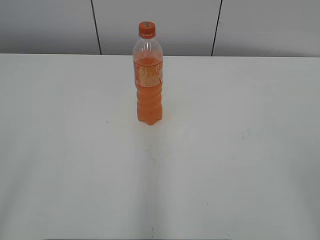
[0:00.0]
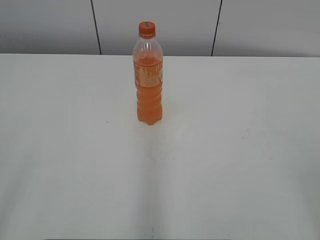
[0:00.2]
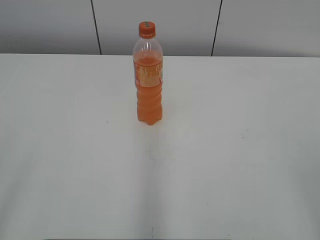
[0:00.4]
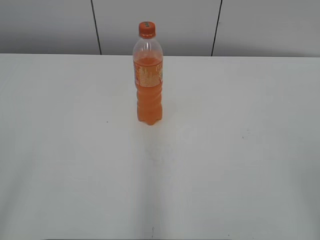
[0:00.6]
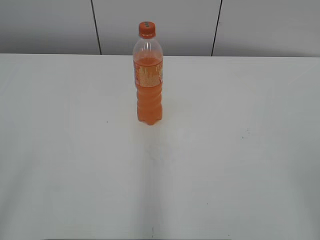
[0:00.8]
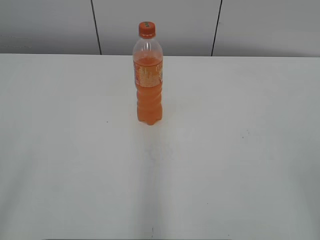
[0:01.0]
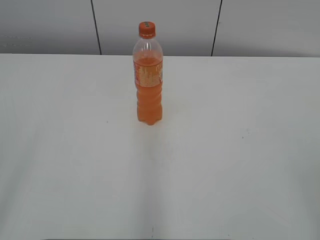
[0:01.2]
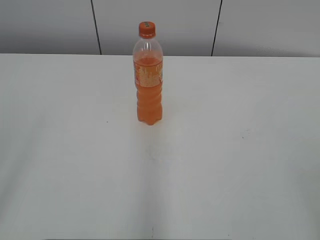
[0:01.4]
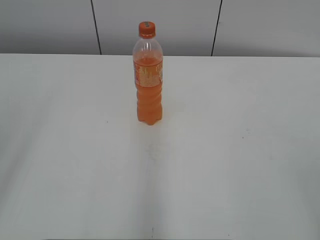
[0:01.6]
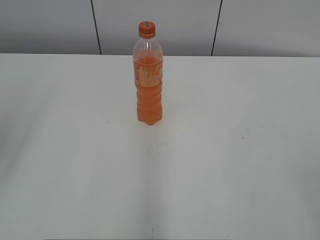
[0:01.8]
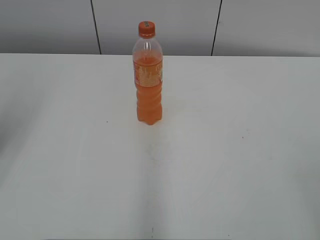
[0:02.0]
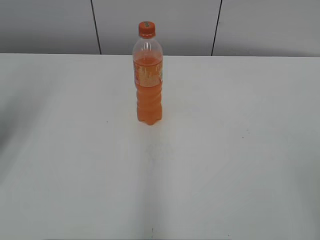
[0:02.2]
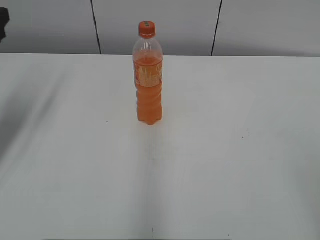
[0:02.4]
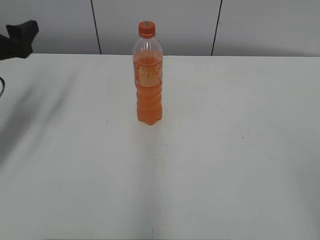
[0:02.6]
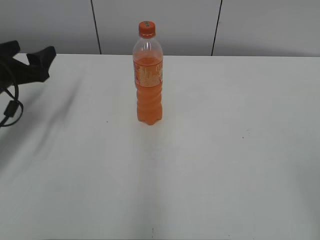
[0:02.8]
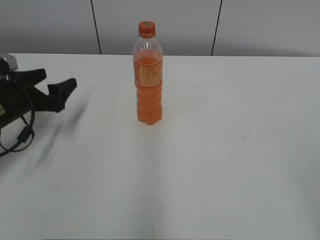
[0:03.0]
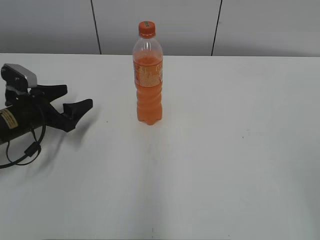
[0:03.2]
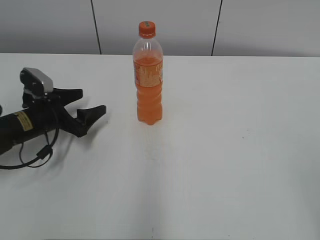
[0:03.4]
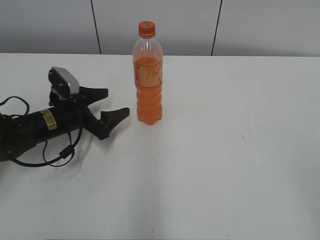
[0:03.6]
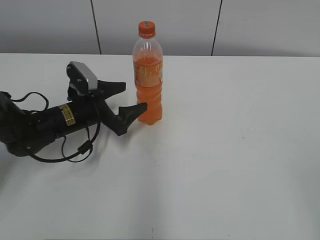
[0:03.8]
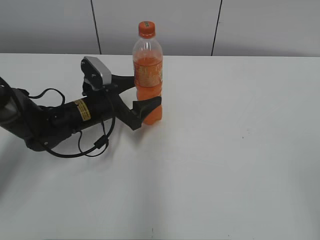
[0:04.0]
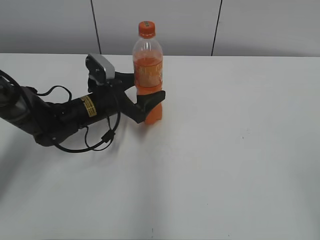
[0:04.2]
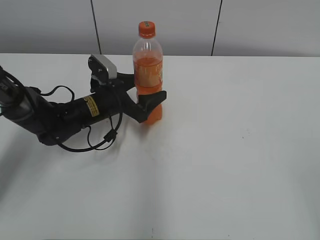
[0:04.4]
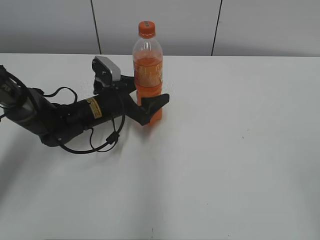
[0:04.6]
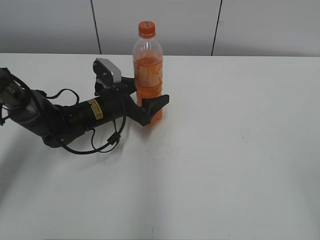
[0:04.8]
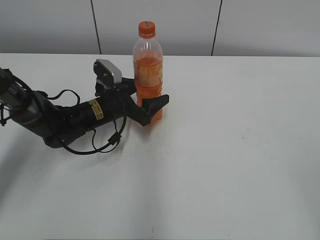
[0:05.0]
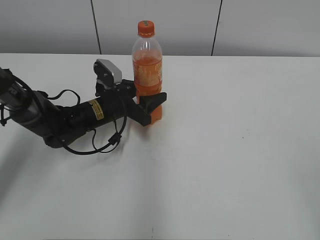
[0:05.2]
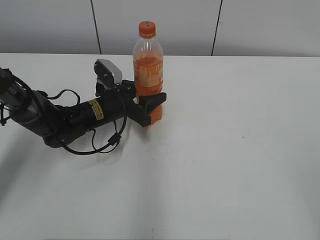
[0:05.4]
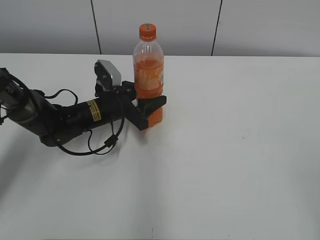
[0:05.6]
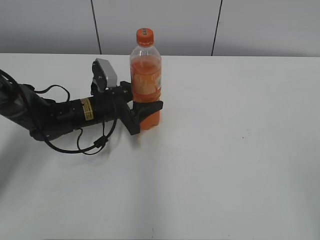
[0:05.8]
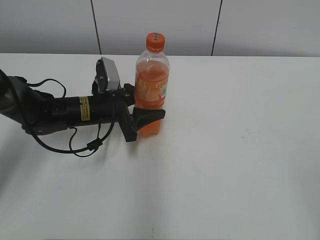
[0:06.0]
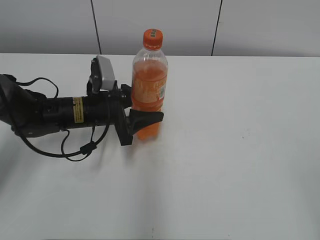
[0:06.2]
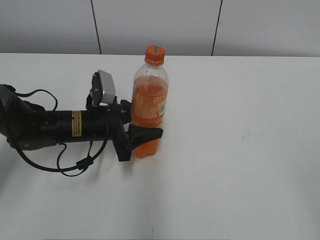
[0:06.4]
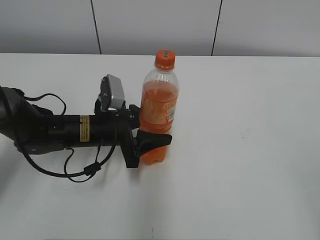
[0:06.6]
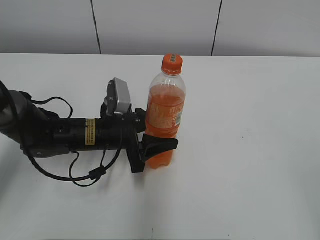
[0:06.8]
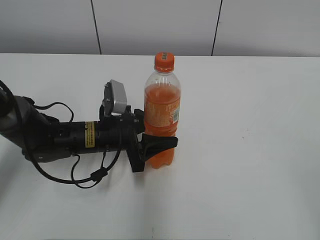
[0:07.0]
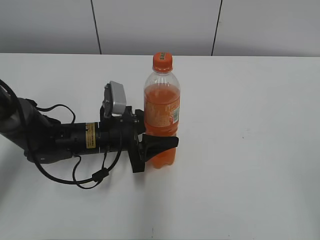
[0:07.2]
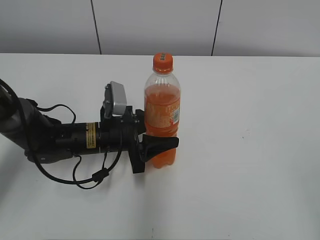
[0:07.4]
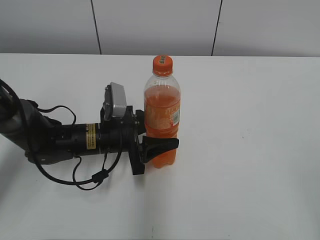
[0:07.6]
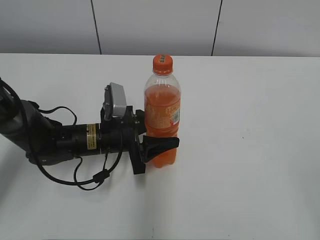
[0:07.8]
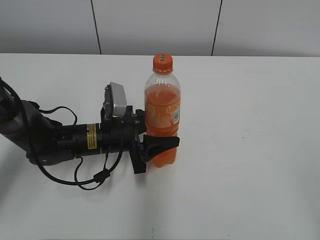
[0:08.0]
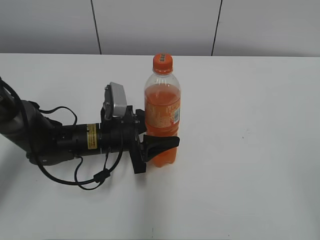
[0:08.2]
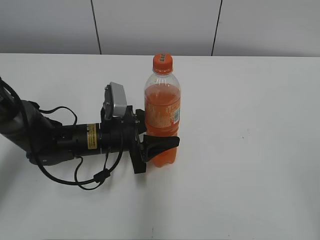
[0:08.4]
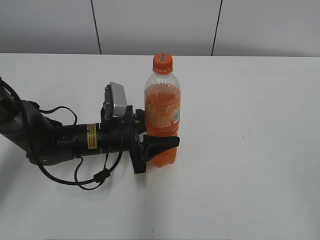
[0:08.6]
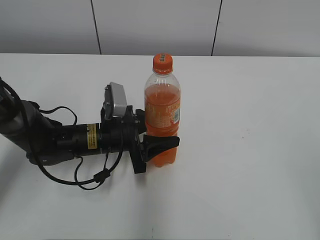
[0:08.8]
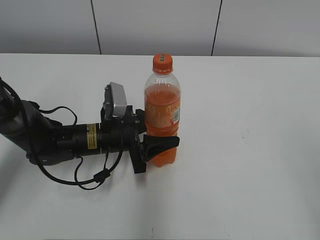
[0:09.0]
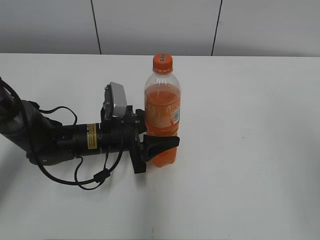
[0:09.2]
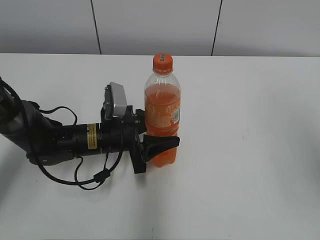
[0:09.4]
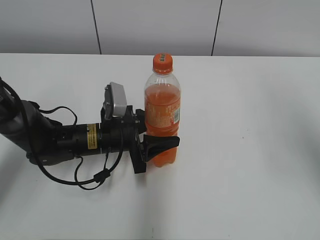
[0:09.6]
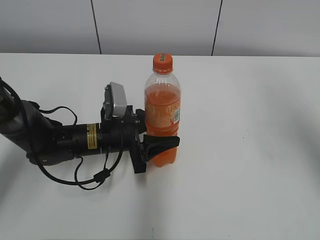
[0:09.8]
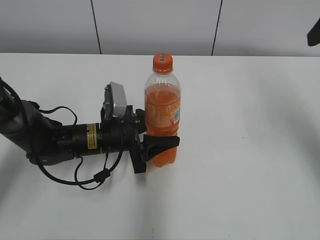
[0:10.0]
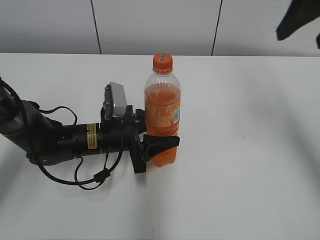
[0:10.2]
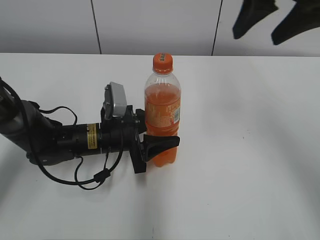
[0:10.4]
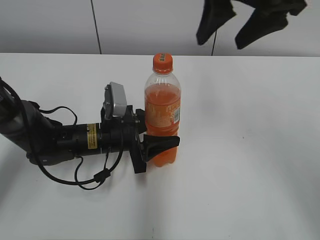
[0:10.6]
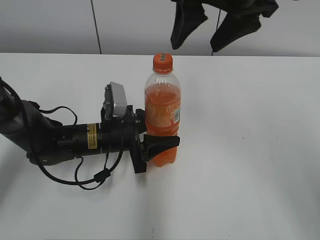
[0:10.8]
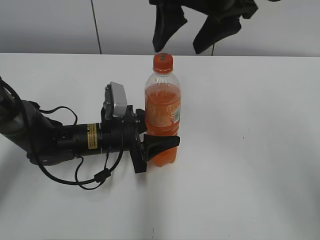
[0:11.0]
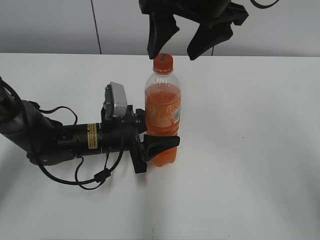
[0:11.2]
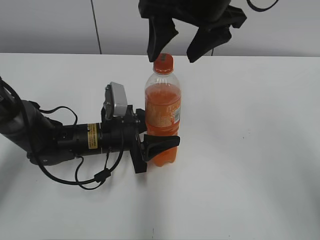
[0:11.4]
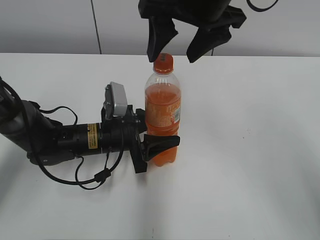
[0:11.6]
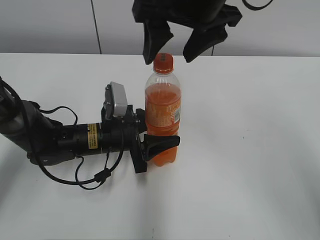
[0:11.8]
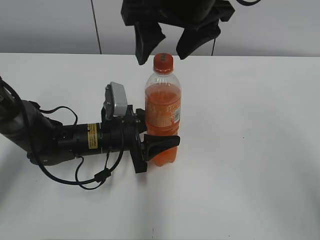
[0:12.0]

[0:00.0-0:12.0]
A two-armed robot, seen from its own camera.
Step, 0:00.0 to 0:05.2: Grab the Mirinda with the left hand.
Step, 0:05.4 to 0:06.8: Move the Mirinda from top to bottom.
0:01.6 to 0:03.0: The left gripper is displaced forward and downward by some 35 cm.
0:03.0 to 0:04.4: The left gripper heads to the right, covering roughly 15 cm.
0:04.4 to 0:06.0: The left gripper closes its fingers.
0:06.0 to 0:07.6: The left gripper is displaced backward by approximately 5 cm.
0:07.6 to 0:09.0: The grippers move only a little.
0:09.0 to 0:10.4: The right gripper heads forward, covering about 30 cm.
0:10.4 to 0:12.0: The right gripper heads to the left, covering some 15 cm.

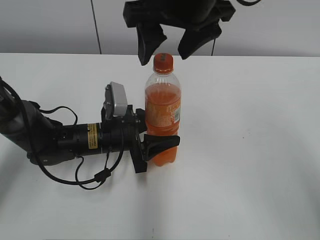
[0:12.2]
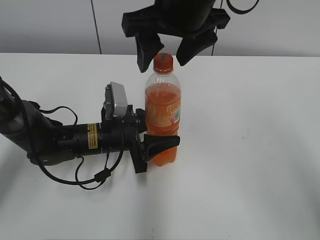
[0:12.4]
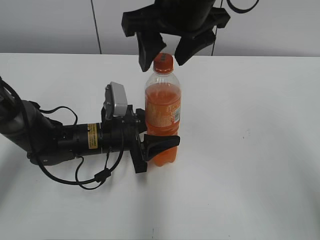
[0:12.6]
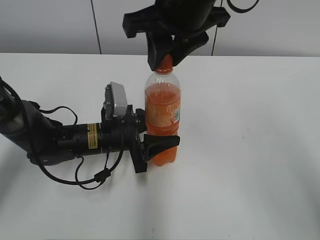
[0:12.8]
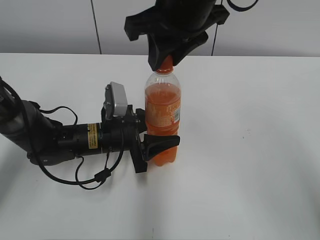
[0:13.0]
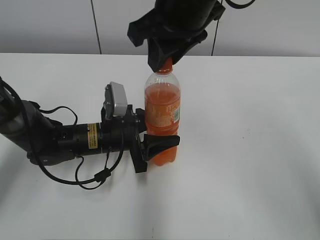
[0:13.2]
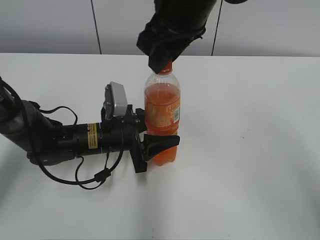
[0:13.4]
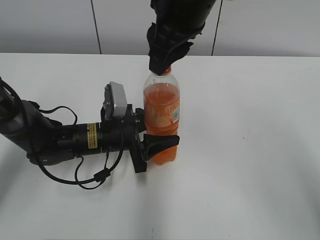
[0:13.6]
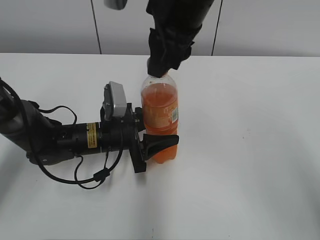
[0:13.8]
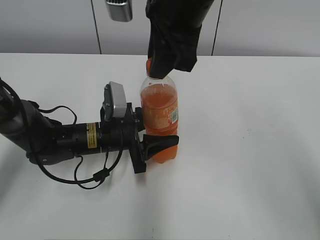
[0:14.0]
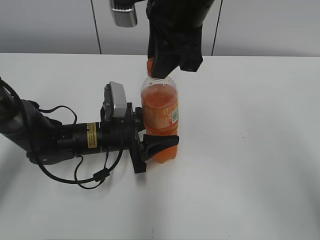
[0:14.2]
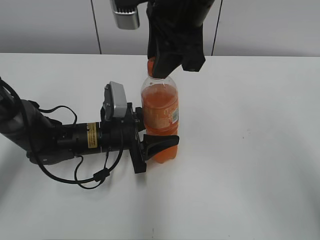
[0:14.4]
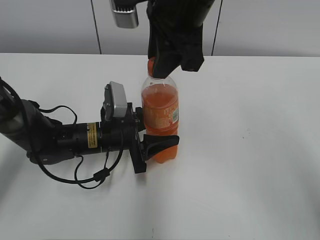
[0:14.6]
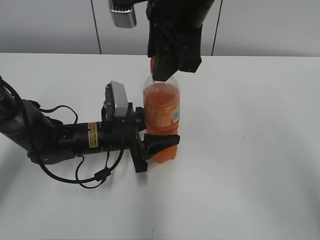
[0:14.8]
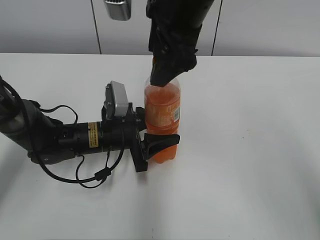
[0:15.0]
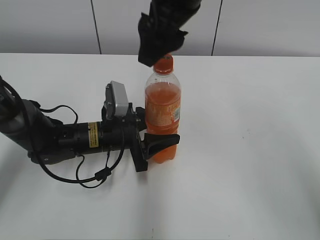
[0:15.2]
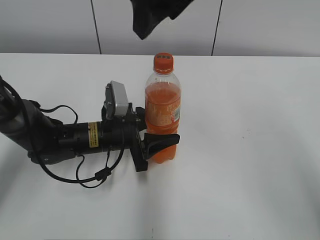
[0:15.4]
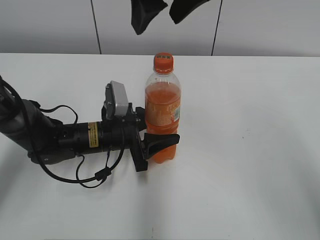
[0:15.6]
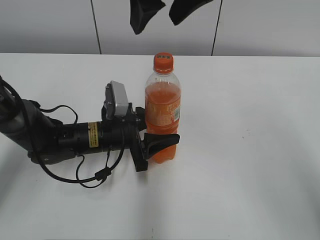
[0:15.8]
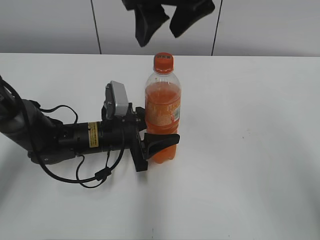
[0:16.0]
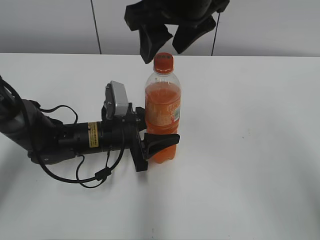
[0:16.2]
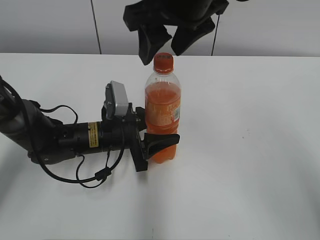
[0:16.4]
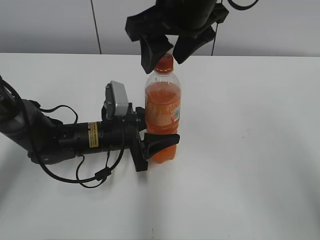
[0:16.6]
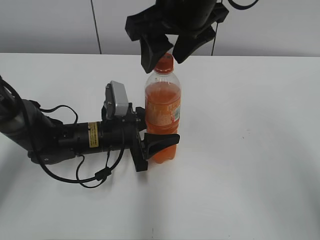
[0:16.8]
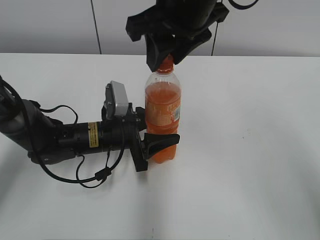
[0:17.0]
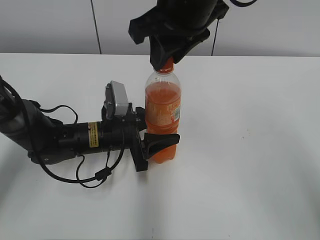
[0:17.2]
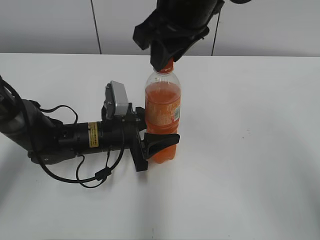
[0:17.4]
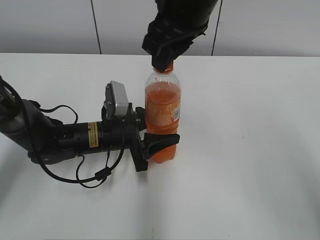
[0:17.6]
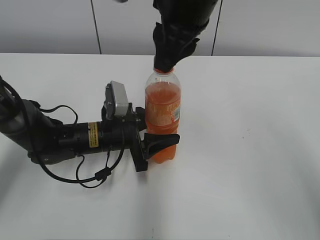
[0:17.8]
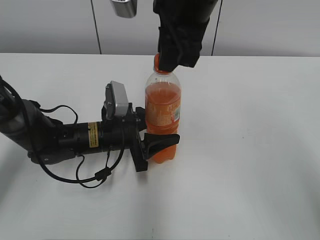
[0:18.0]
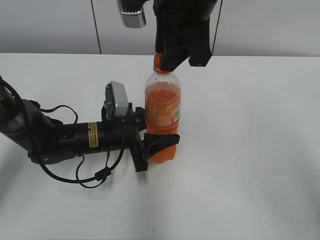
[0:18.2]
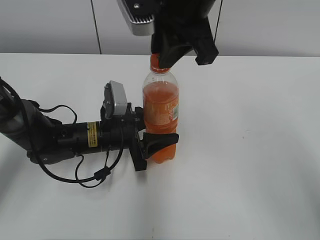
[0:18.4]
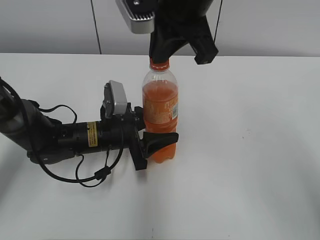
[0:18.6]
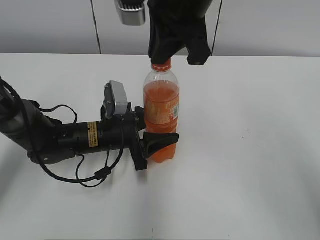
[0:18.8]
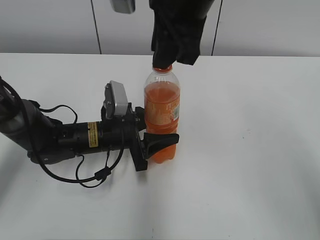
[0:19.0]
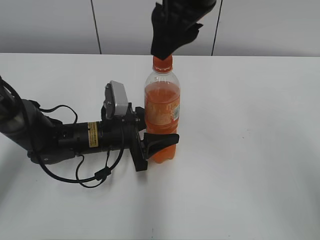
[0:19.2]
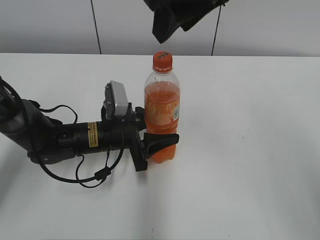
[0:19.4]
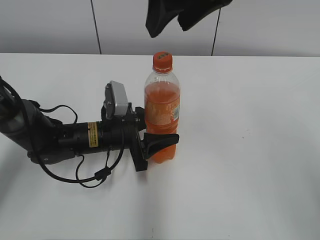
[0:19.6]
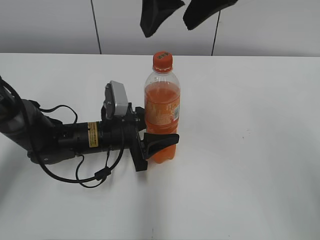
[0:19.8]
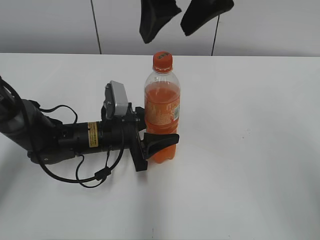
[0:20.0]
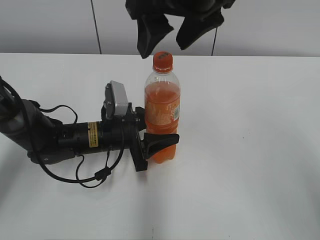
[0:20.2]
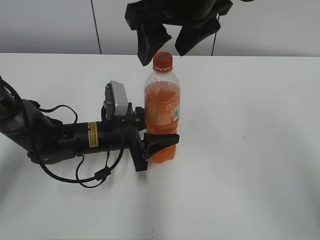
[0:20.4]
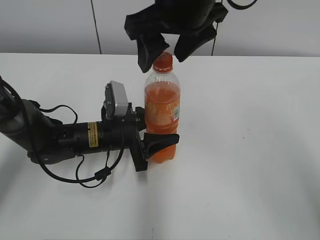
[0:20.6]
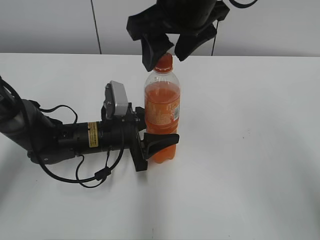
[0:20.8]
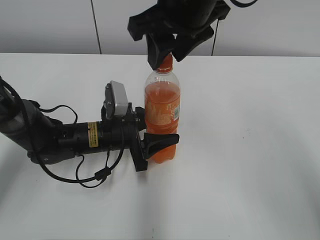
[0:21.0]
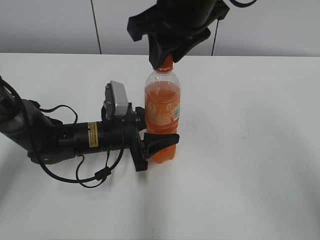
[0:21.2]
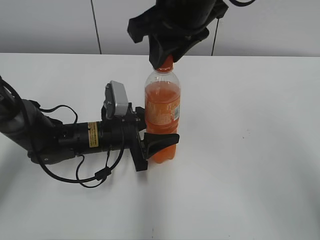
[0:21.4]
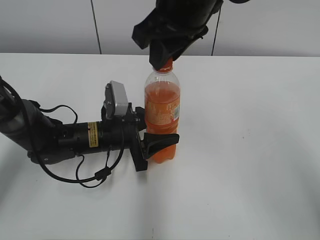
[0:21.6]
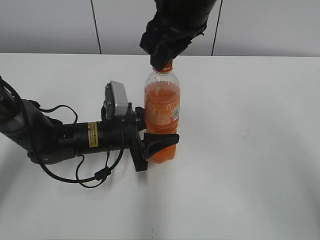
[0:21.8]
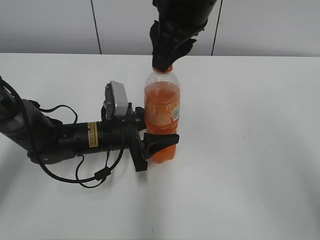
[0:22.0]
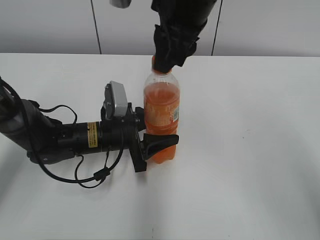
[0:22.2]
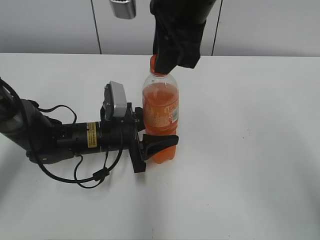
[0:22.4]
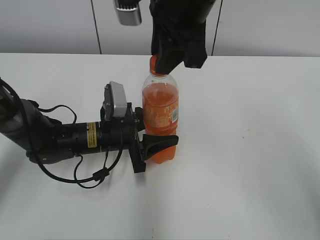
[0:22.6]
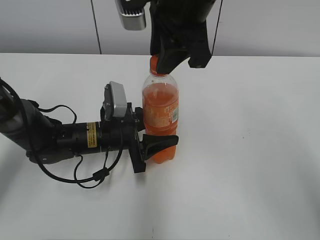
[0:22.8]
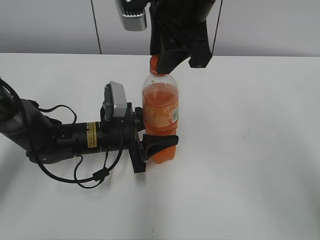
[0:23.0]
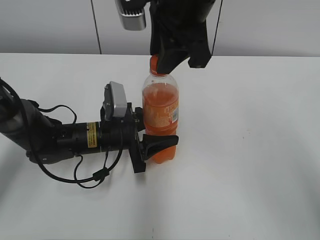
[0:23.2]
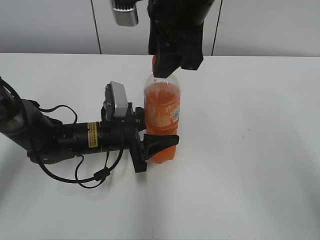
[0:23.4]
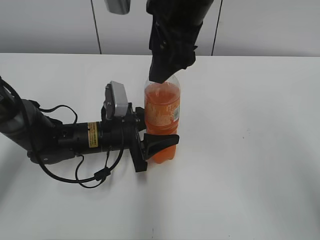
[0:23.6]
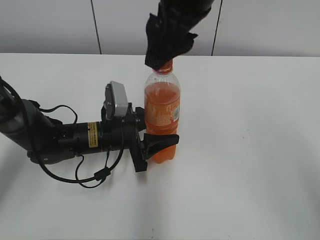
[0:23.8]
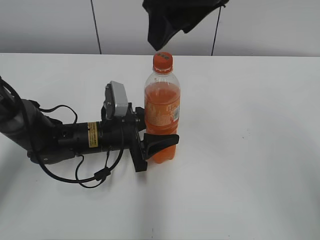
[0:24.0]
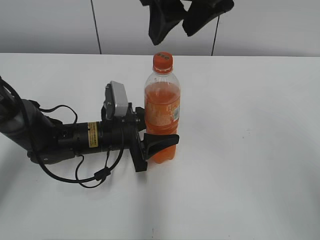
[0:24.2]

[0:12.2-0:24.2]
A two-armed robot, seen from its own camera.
0:12.2 to 0:13.8: The right gripper closes its fingers.
0:13.8 to 0:15.2: The right gripper opens its fingers.
0:16.6 to 0:18.2: The right gripper closes up.
0:18.2 to 0:19.8: The right gripper shifts roughly 5 cm upward, and opens its fingers.
0:19.8 to 0:21.2: The right gripper travels downward by roughly 5 cm, and closes its fingers.
0:22.6 to 0:24.2: The right gripper opens up.
